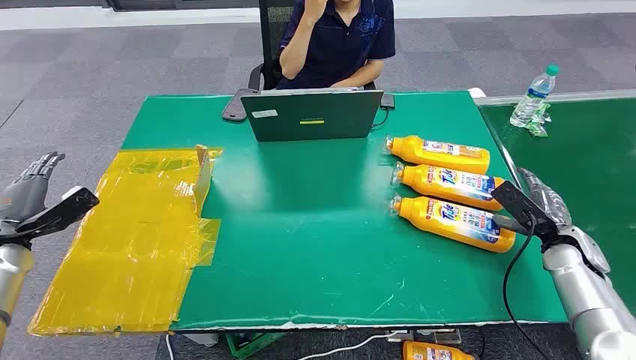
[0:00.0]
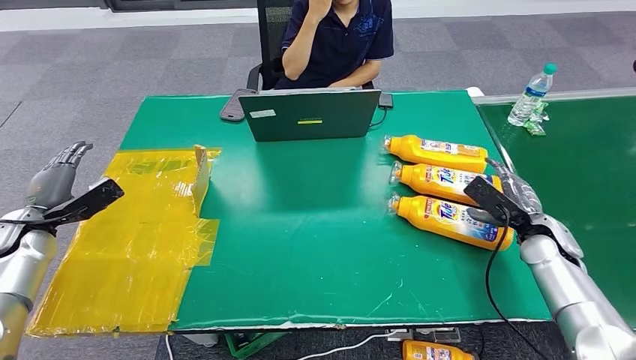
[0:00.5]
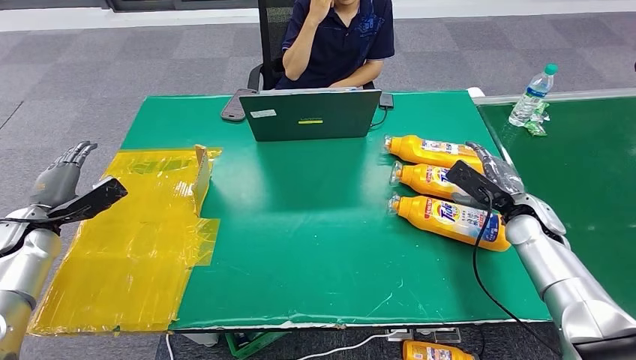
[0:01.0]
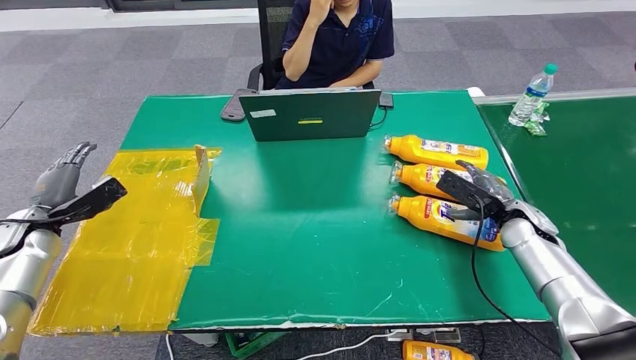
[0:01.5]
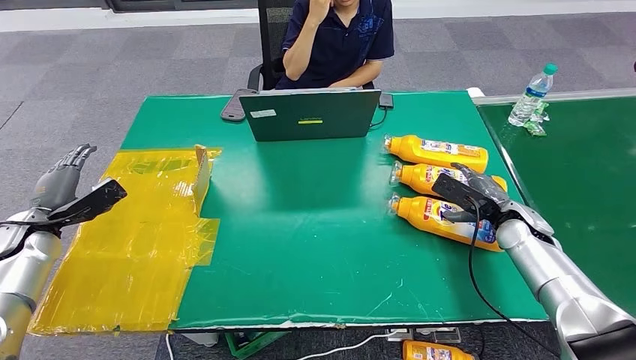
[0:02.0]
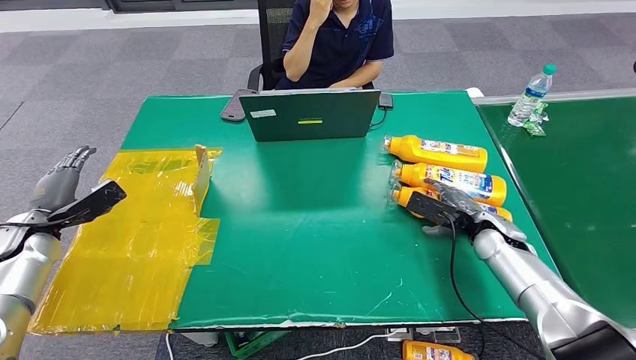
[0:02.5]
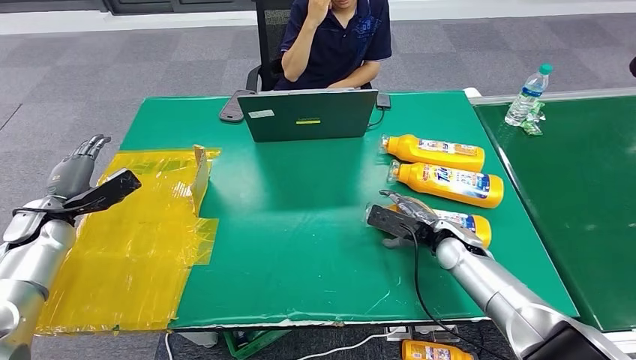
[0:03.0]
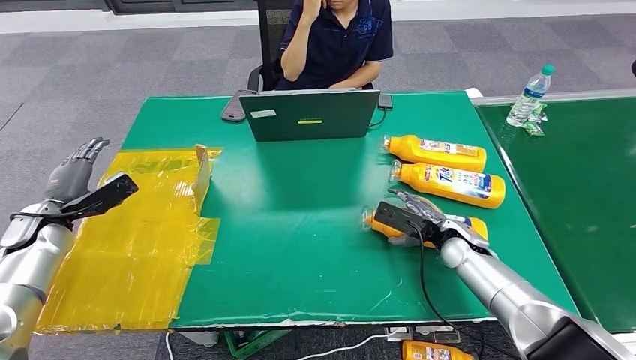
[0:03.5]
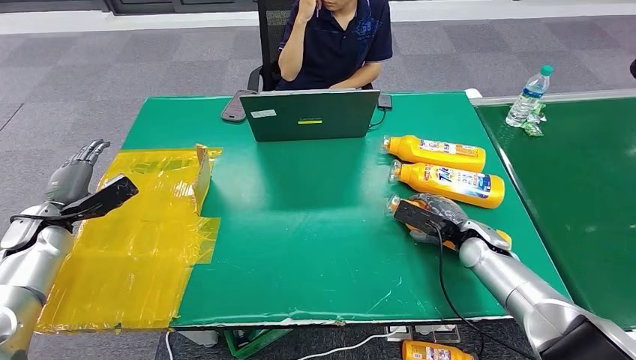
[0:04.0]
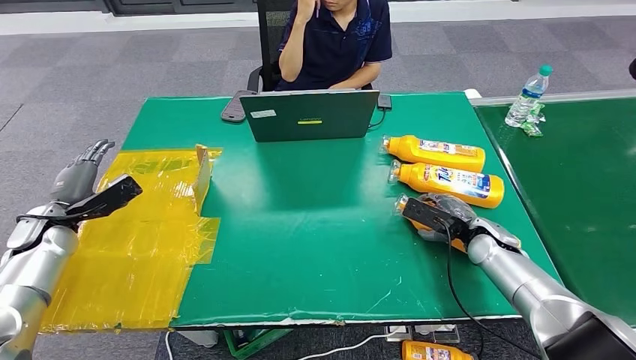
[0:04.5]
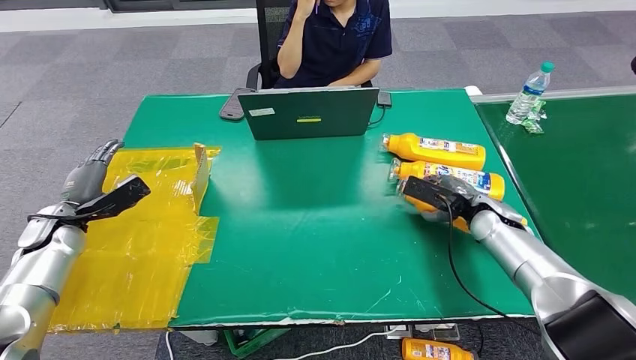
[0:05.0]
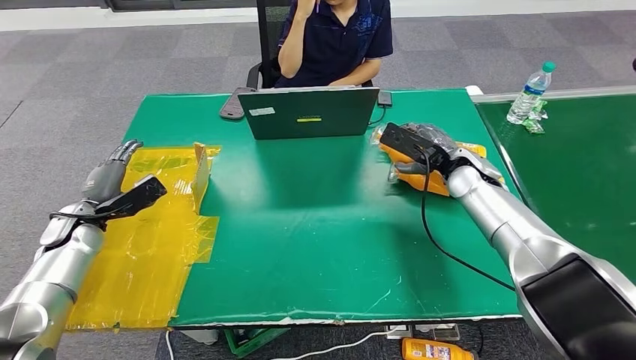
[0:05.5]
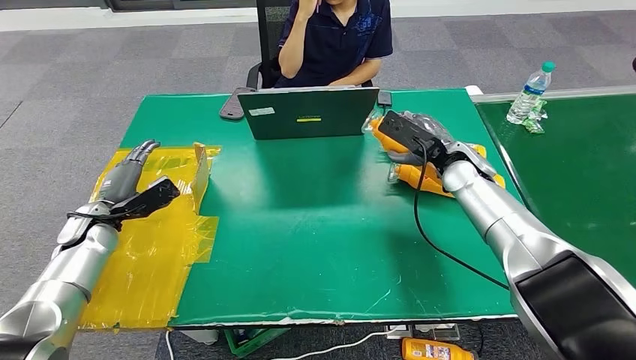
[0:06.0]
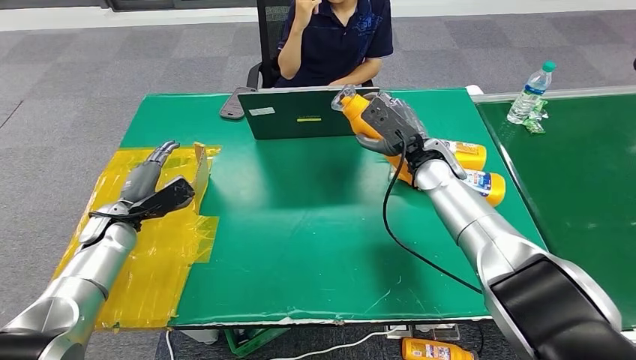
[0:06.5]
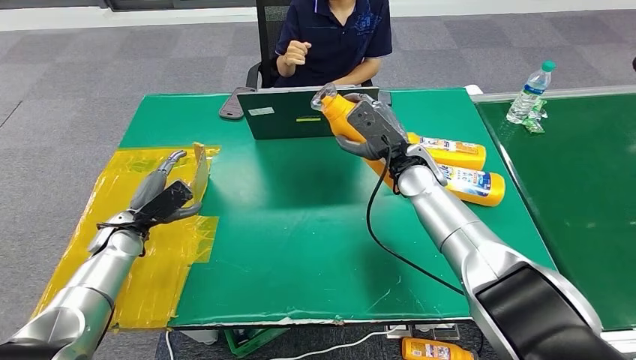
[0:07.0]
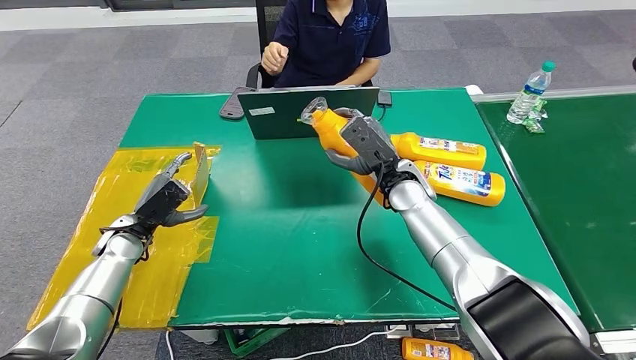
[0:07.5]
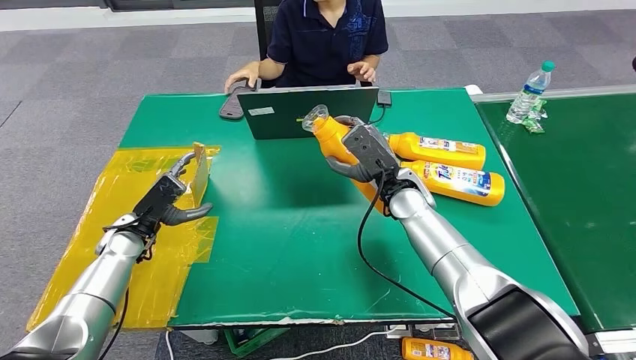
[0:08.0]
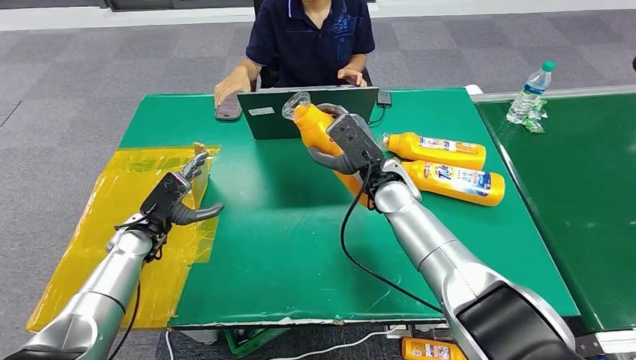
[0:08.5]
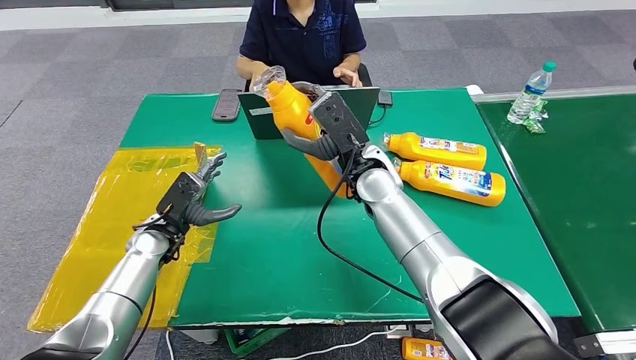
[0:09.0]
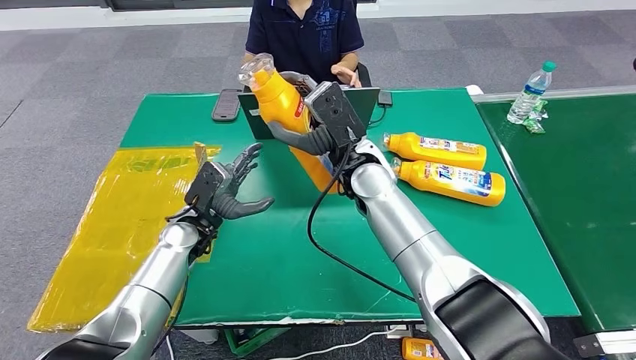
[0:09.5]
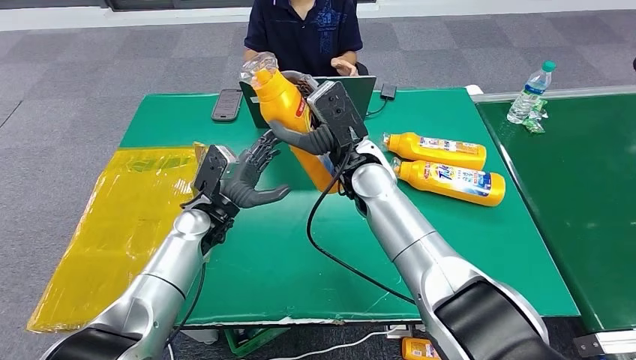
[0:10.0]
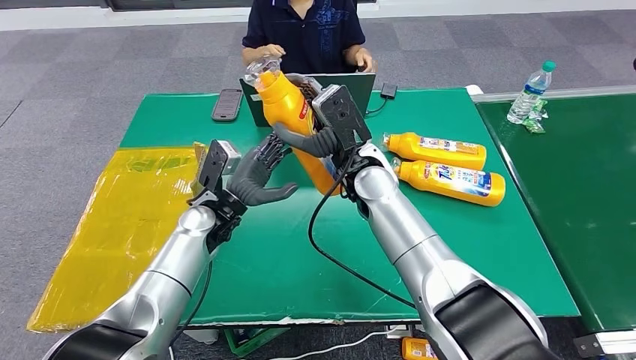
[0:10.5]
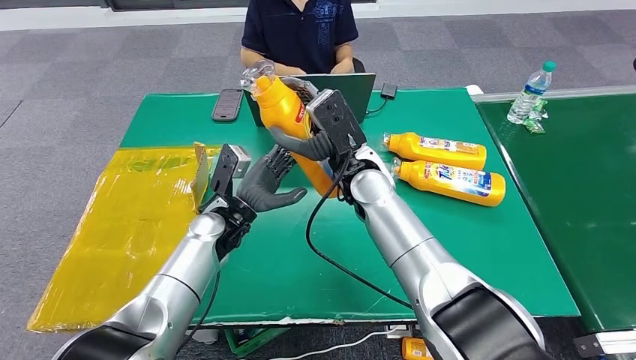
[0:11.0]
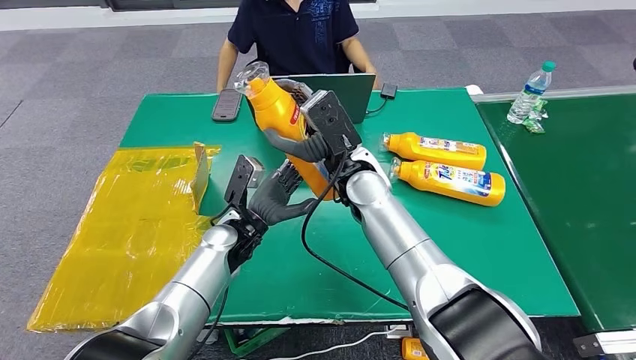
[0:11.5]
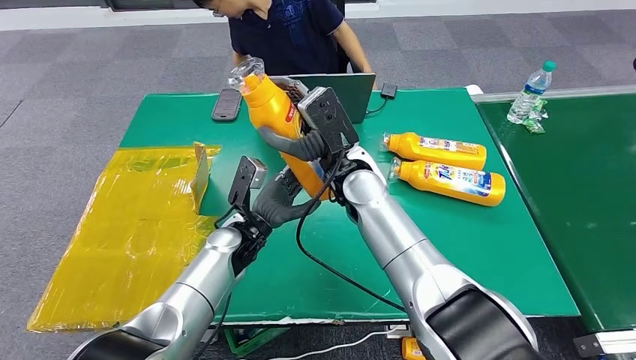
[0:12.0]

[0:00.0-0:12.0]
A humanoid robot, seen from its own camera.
Step, 0:00.0 to 0:05.5: Pick up the bottle from the table.
0:02.0 to 0:04.0: The right hand heads to the left, covering some 5 cm.

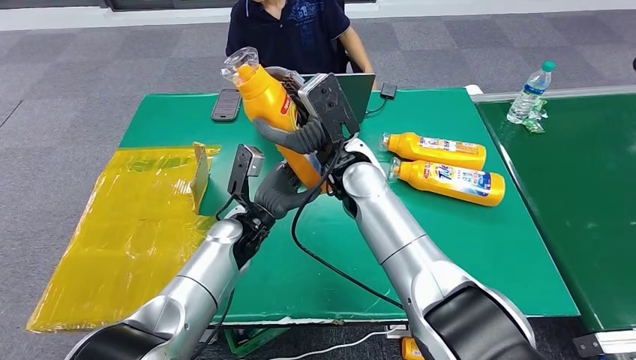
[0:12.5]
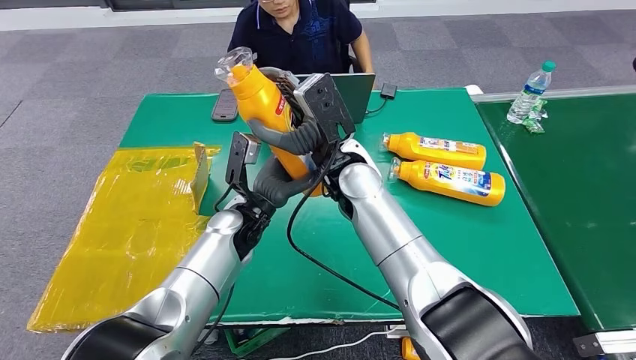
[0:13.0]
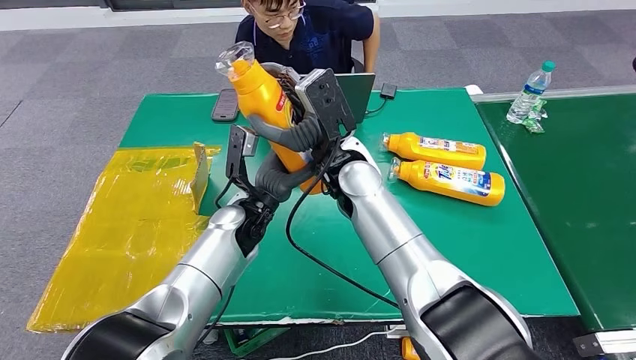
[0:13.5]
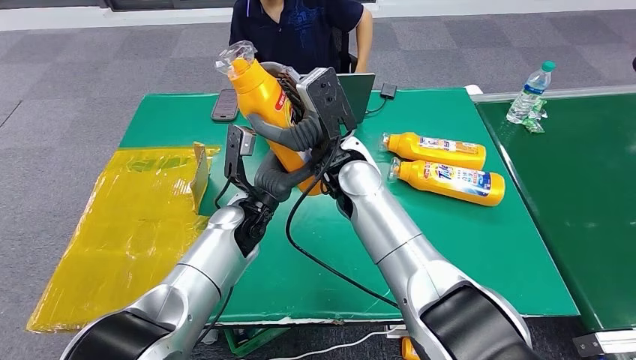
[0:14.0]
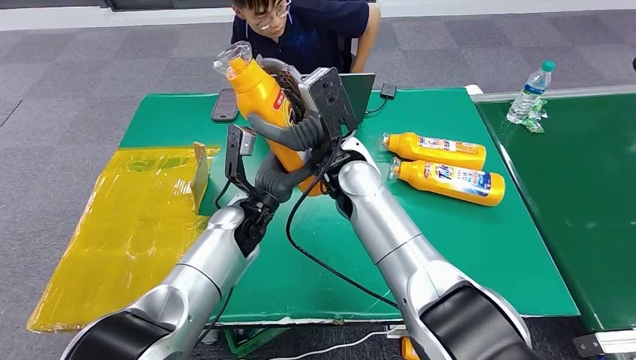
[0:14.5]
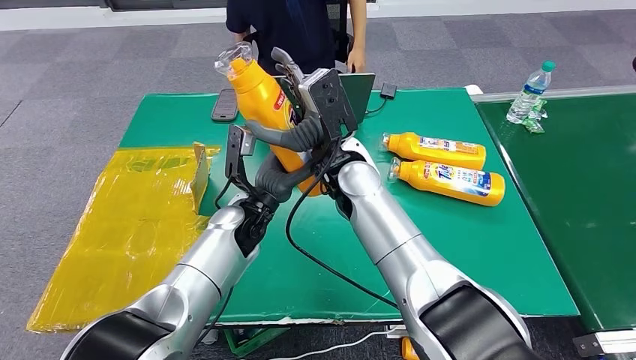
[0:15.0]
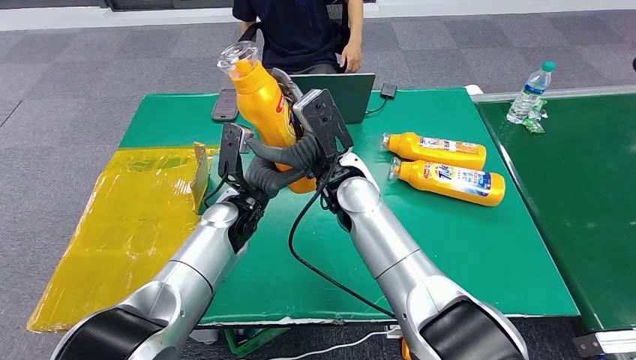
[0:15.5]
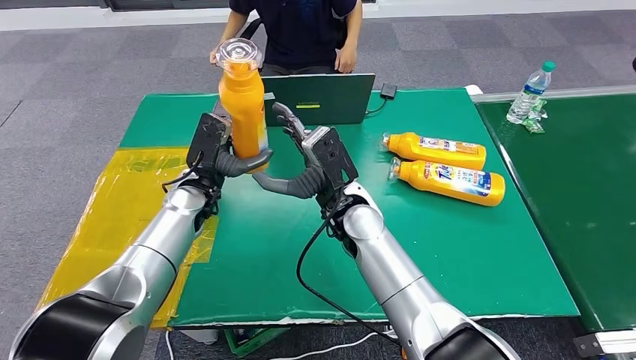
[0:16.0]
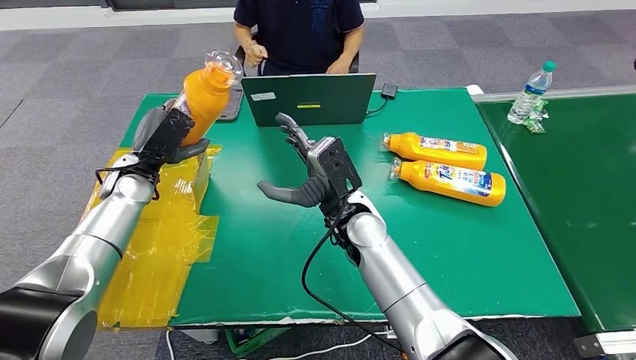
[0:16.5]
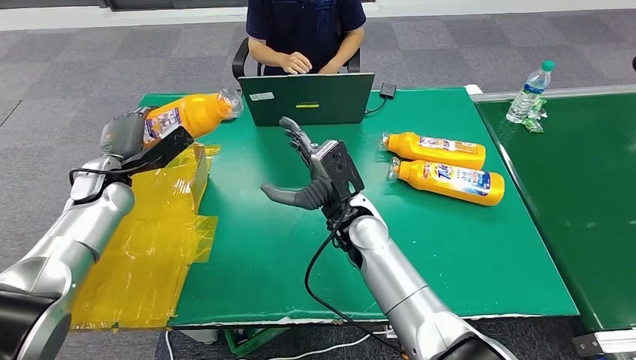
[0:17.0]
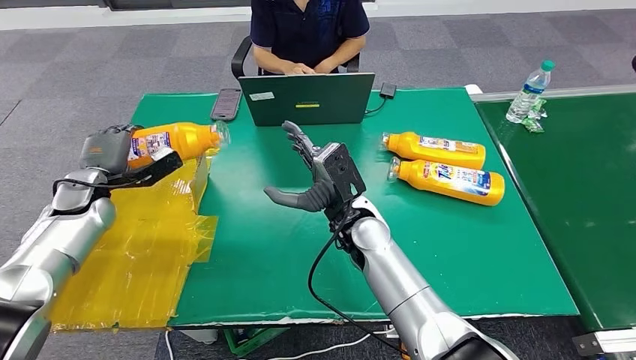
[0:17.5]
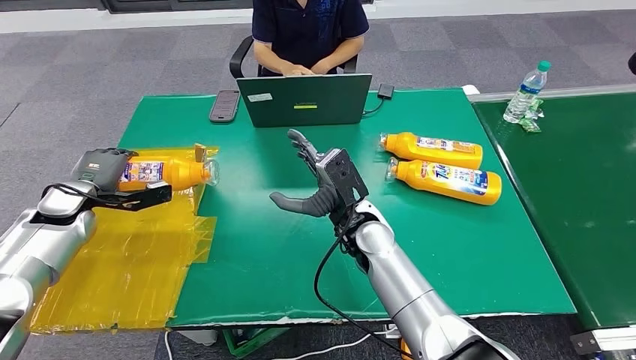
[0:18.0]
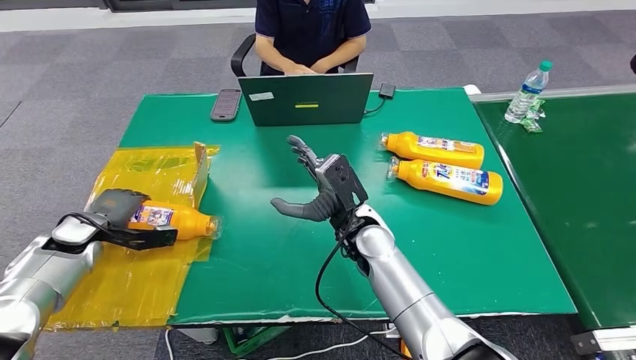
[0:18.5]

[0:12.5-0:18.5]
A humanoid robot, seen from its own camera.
Step, 0:12.5 to 0:18.5: Turn the bottle to the front side.
0:12.5 to 0:14.5: There are only small adjustments of the hands.
